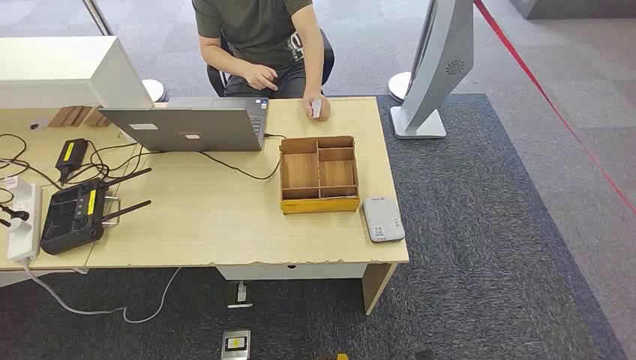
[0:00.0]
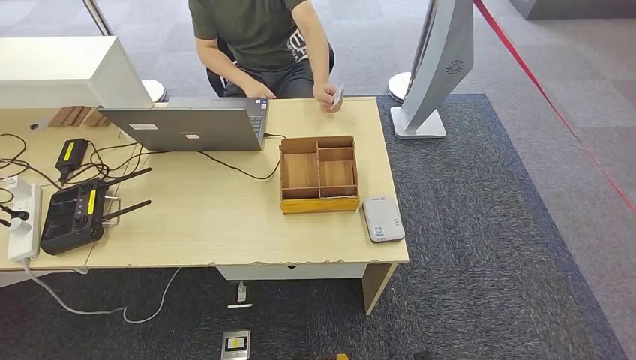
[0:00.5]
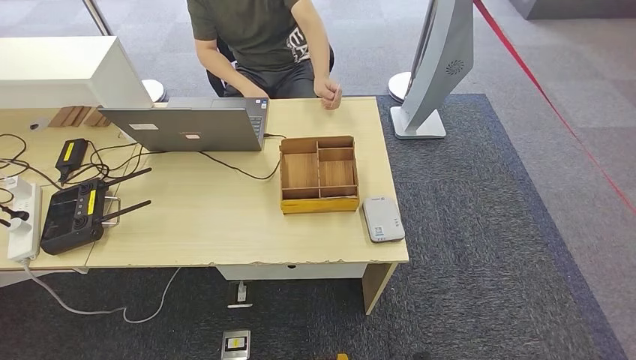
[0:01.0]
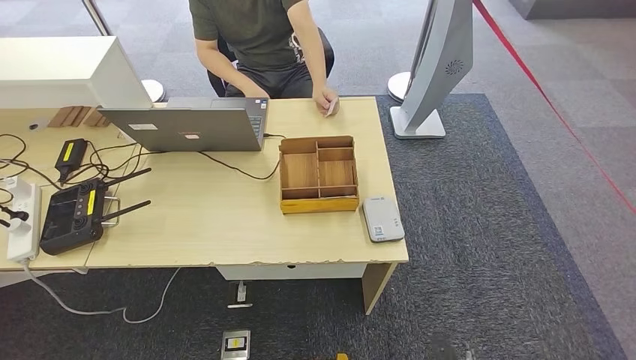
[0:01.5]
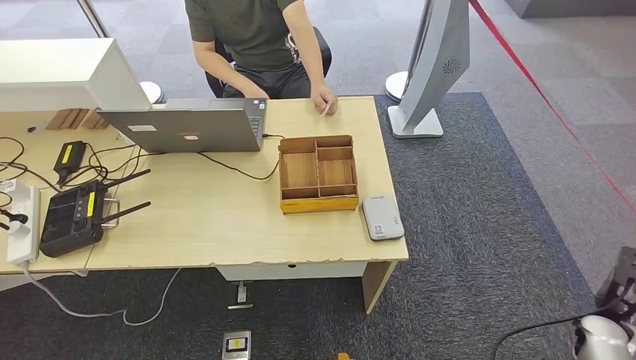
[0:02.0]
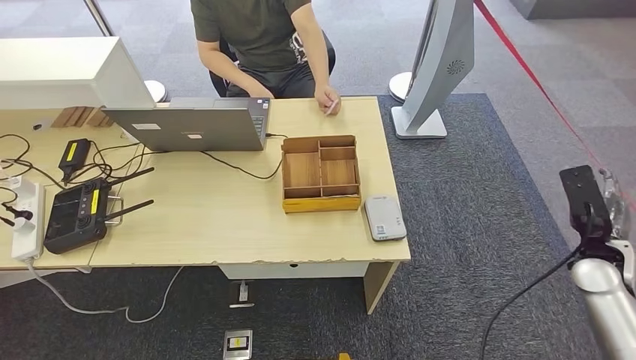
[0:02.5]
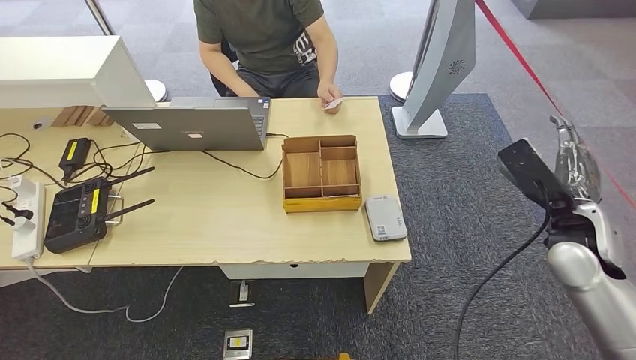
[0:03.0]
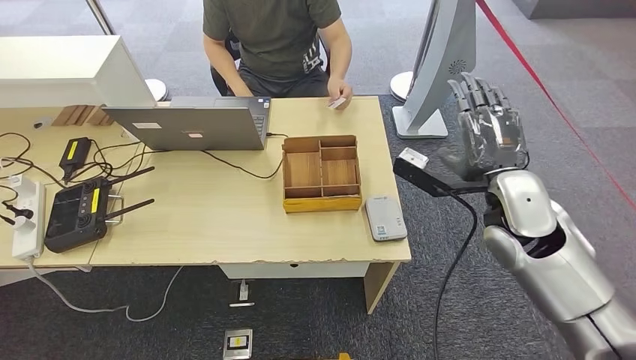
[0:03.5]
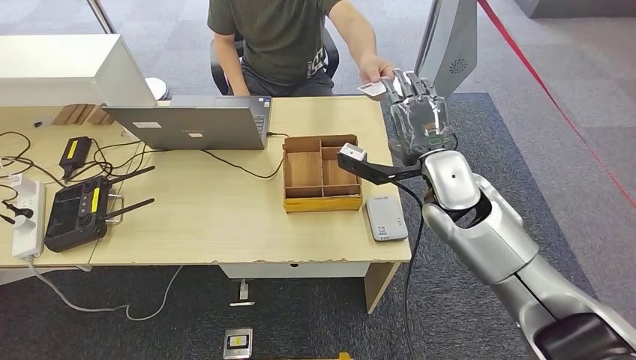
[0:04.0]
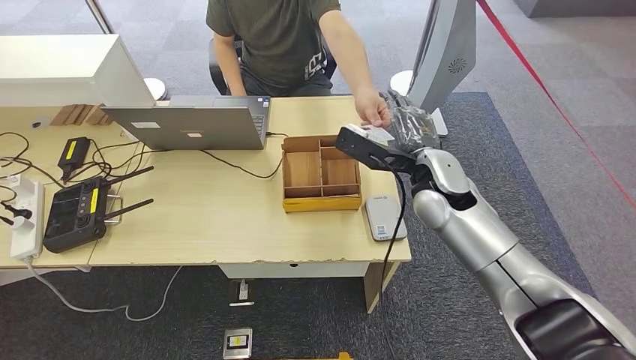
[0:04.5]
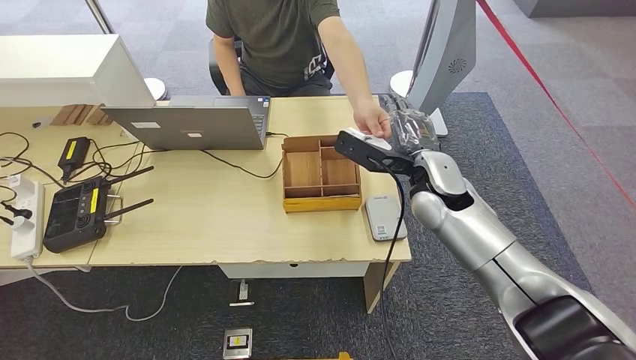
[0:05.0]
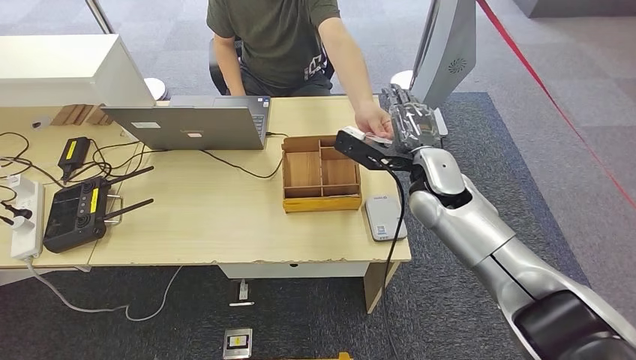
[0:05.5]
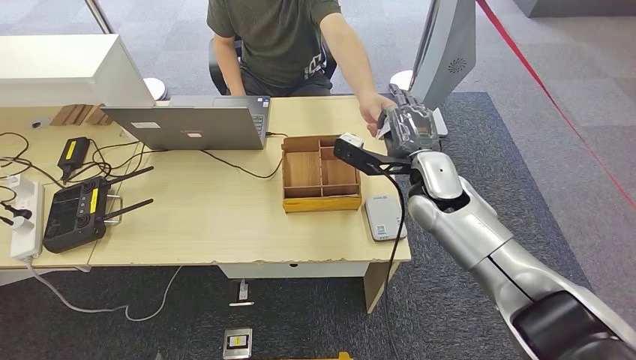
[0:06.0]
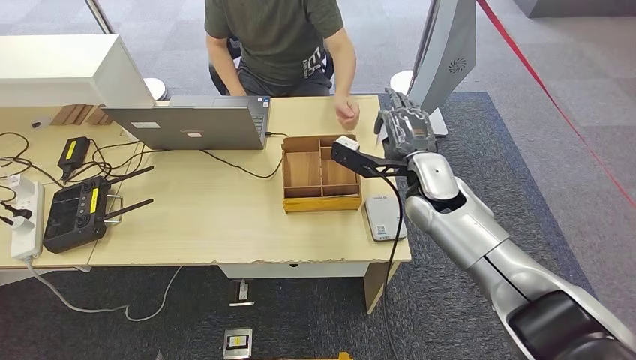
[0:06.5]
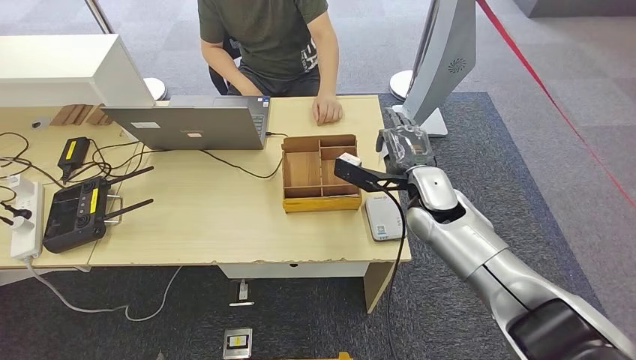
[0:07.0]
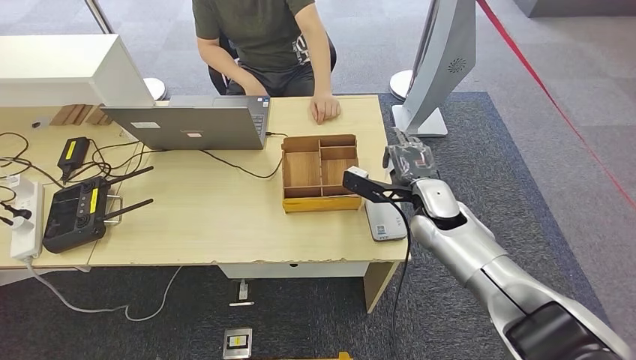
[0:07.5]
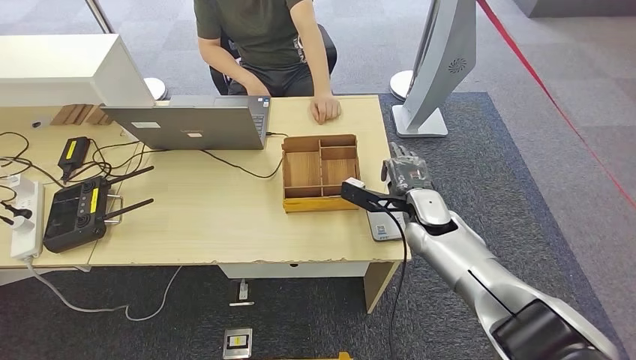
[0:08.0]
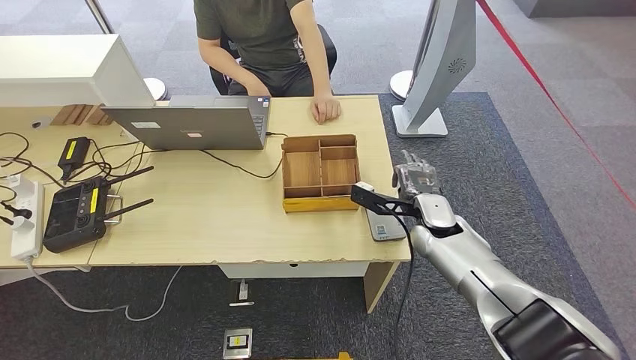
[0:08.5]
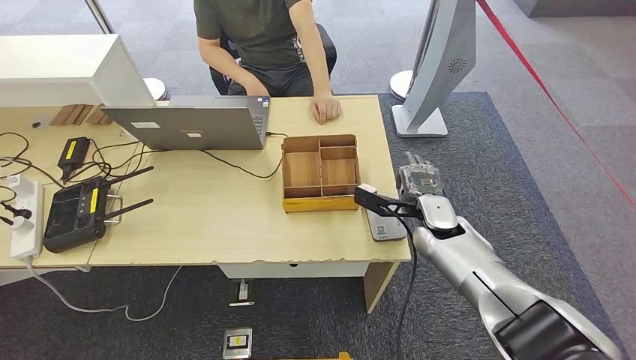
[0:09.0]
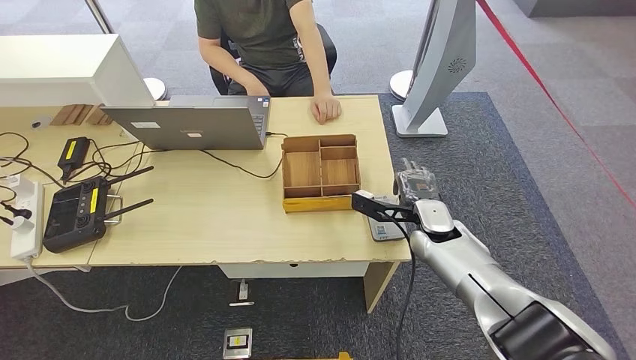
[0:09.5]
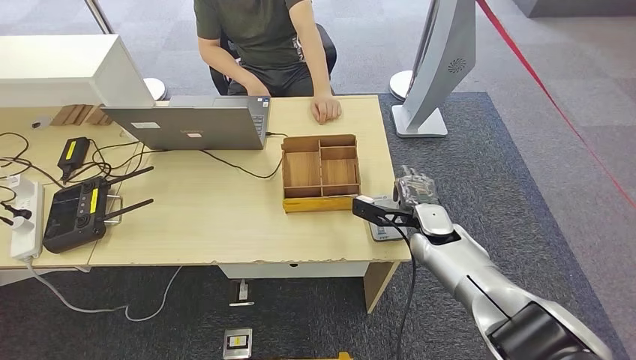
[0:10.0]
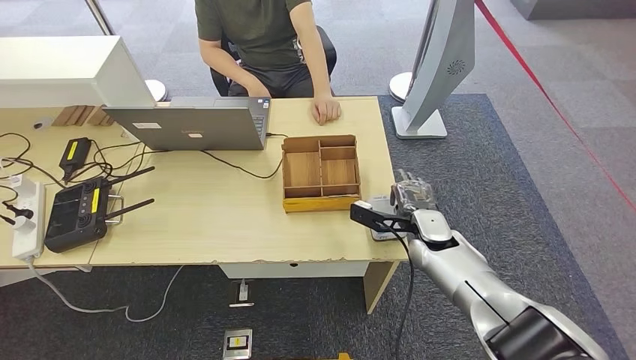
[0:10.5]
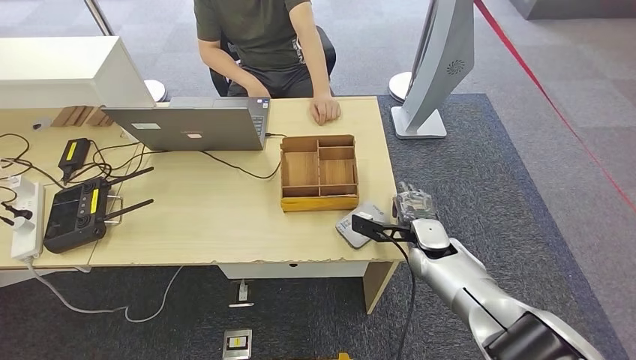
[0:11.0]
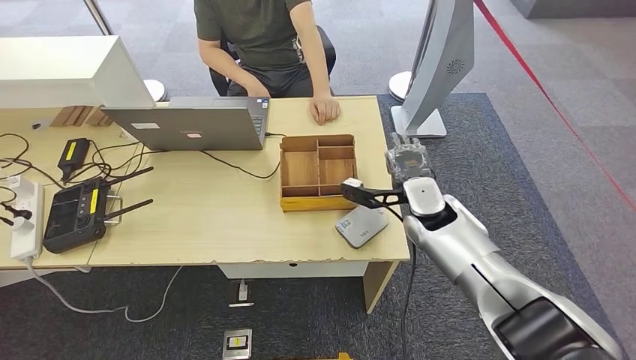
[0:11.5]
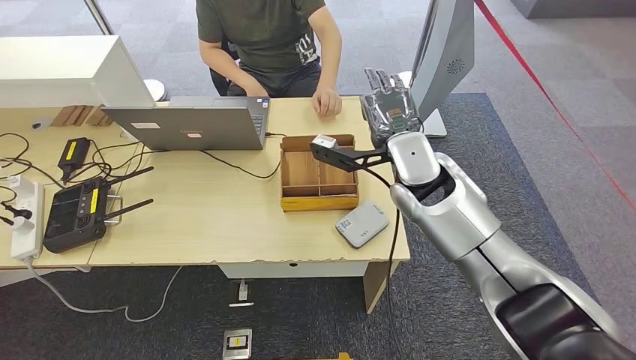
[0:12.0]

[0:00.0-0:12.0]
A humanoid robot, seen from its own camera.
Step, 0:00.0 to 0:05.0: Take the ID card from the person's hand.
Step, 0:05.5 to 0:11.0: Place the ID card on the card reader.
0:06.0 to 0:08.0: The right hand heads downward, covering approximately 10 cm.
0:08.0 to 0:10.0: The hands make only small movements.
0:10.0 to 0:12.0: The right hand goes approximately 20 cm upward and to the left.

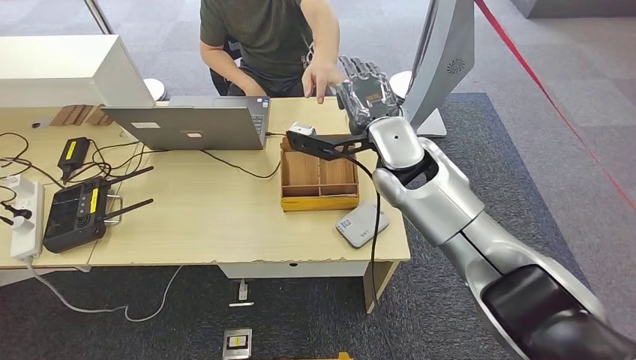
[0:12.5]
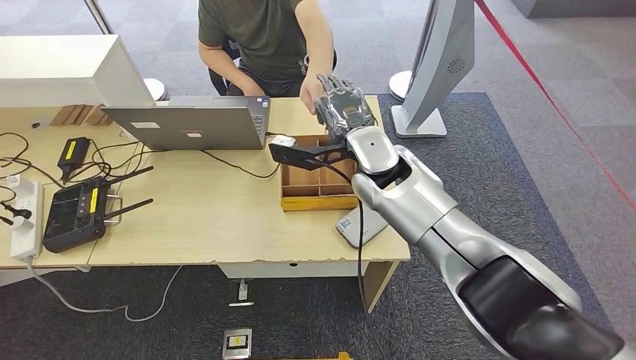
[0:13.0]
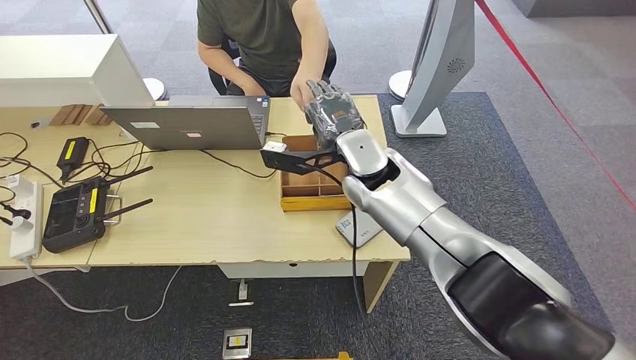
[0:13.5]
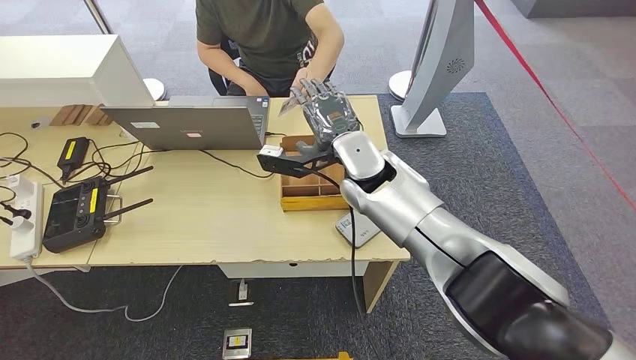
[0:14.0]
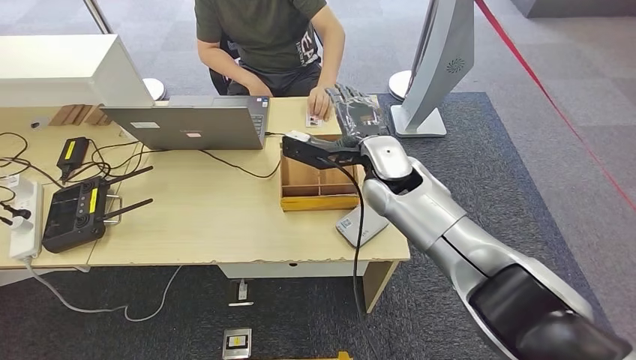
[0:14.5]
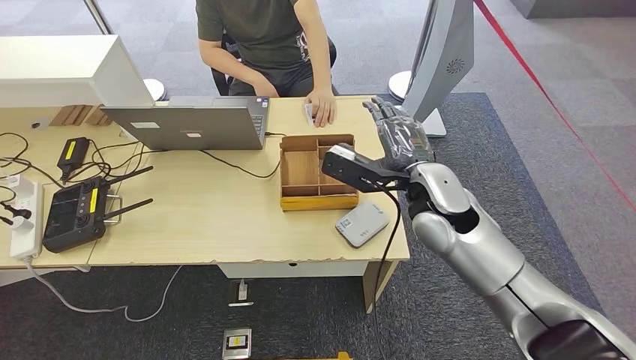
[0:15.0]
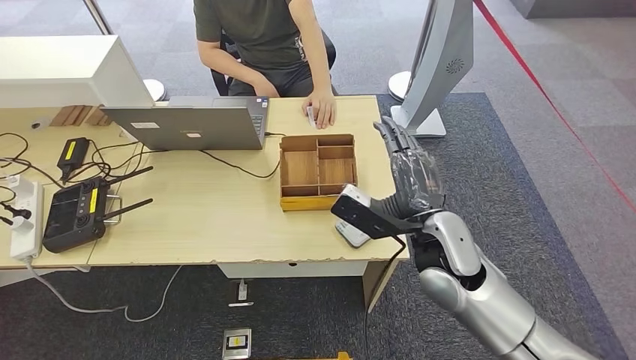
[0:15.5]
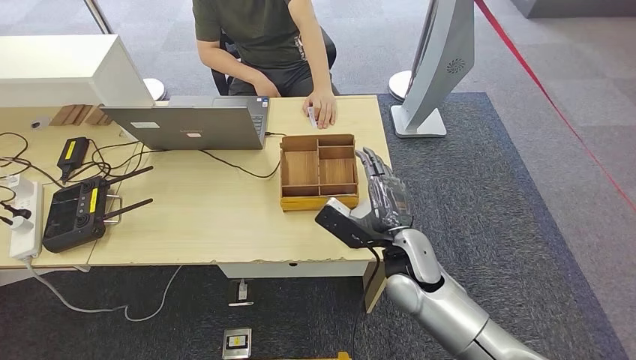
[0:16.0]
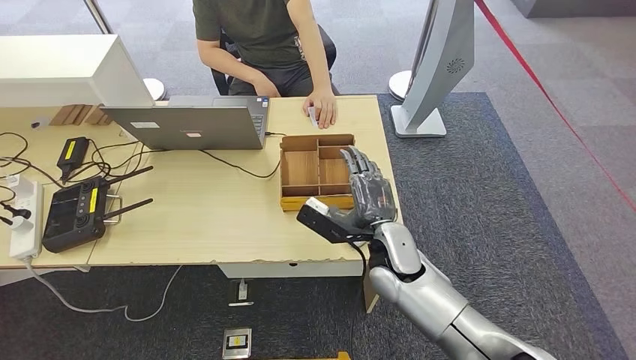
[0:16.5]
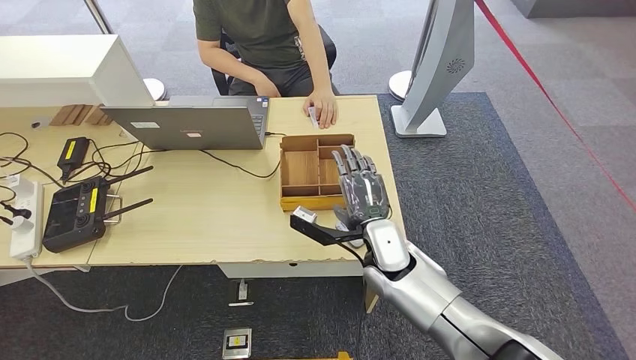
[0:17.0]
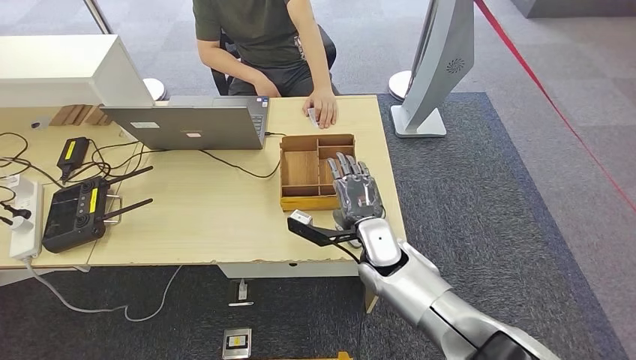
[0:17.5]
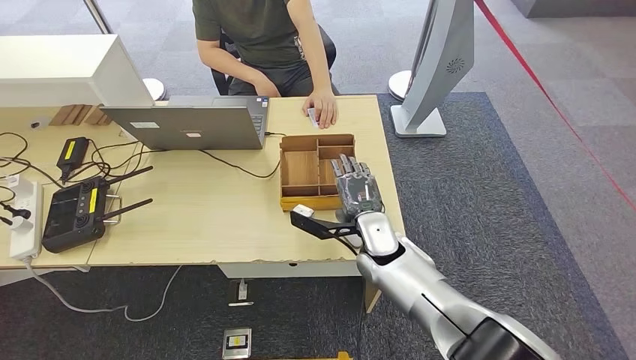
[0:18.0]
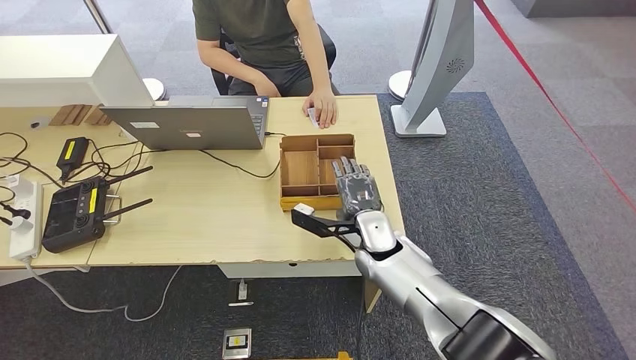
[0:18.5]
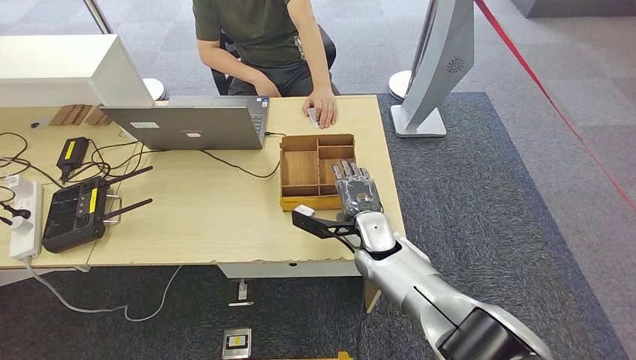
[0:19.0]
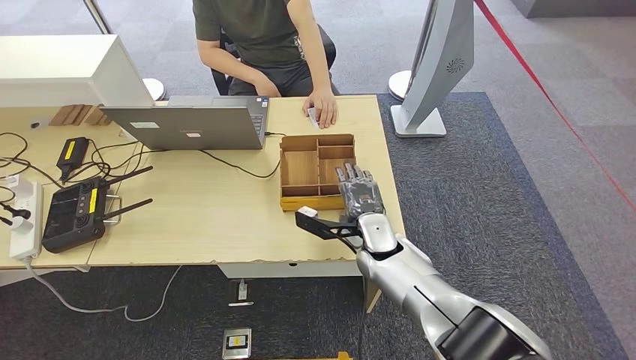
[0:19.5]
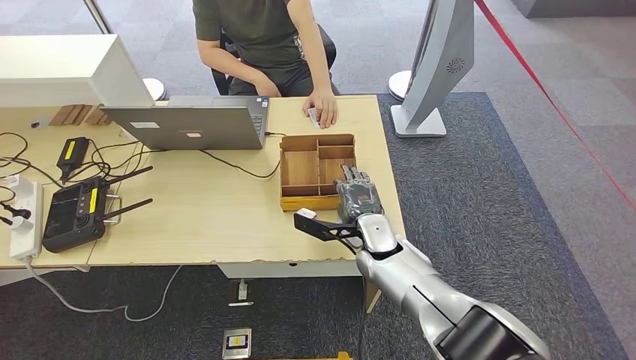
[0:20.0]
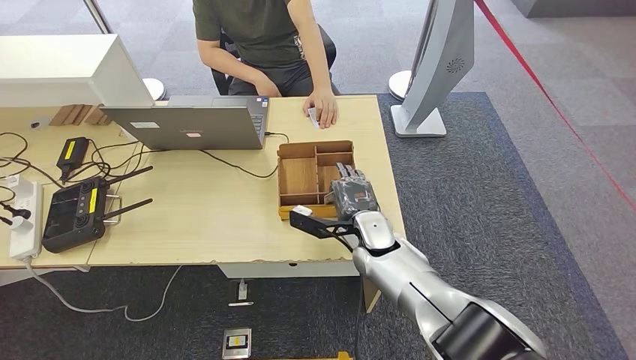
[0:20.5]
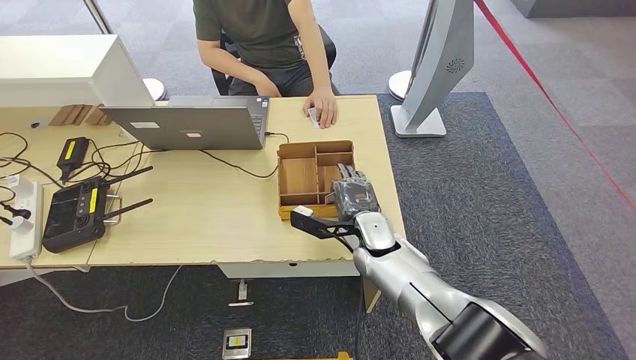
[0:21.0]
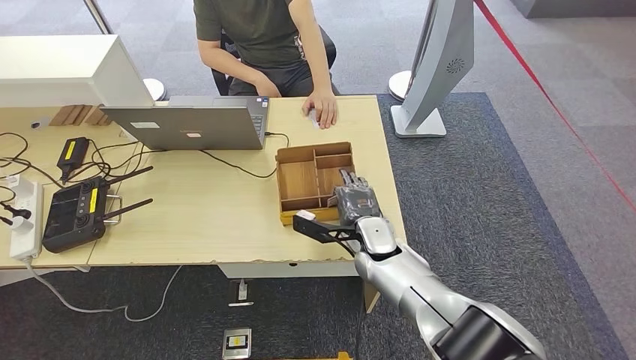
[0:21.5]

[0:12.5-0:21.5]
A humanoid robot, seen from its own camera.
Step, 0:14.0 to 0:20.5: Pick up the room key from the key card box.
0:12.5 to 0:14.5: The right hand shifts some 5 cm downward.
0:14.5 to 0:17.0: The right hand heads downward, covering roughly 10 cm.
0:17.0 to 0:19.5: The right hand moves approximately 5 cm.
0:19.5 to 0:21.5: The hands make only small movements.
